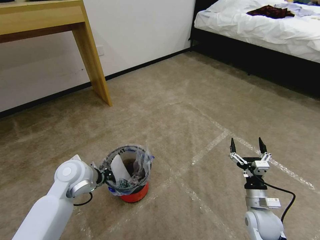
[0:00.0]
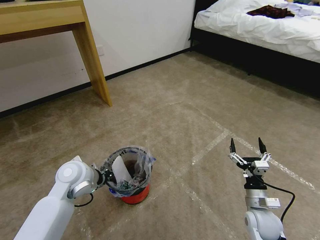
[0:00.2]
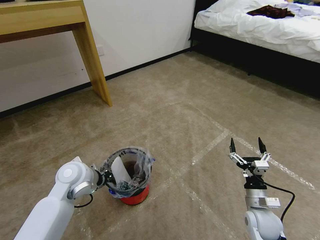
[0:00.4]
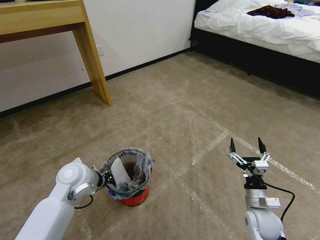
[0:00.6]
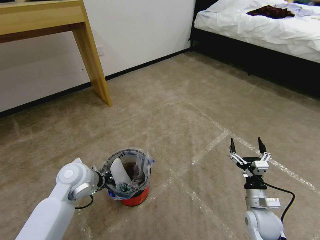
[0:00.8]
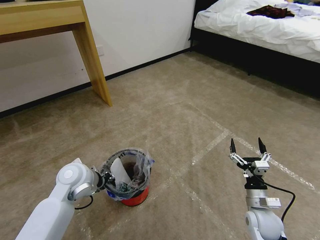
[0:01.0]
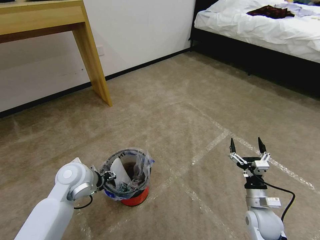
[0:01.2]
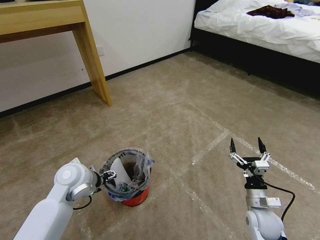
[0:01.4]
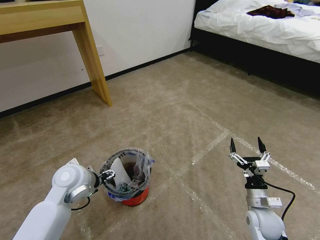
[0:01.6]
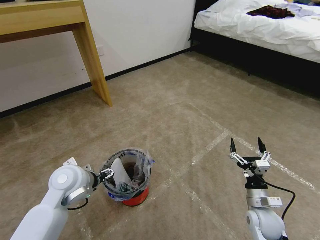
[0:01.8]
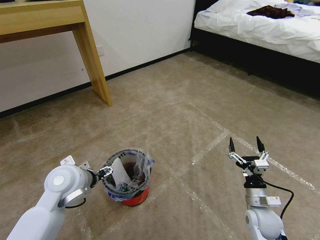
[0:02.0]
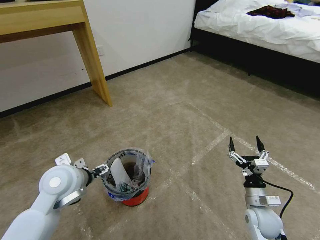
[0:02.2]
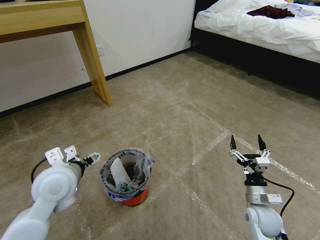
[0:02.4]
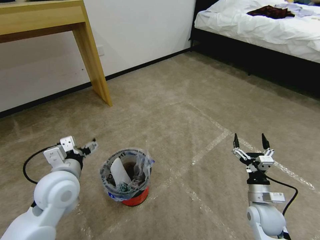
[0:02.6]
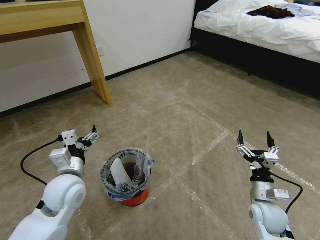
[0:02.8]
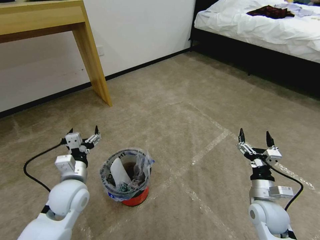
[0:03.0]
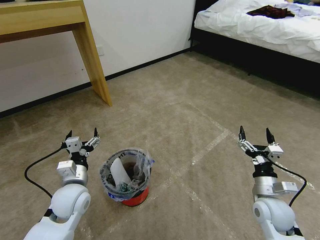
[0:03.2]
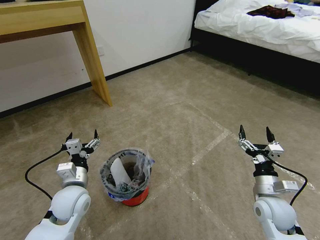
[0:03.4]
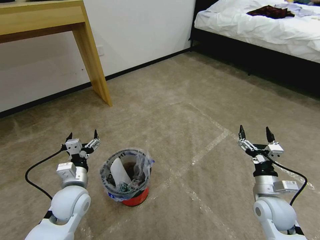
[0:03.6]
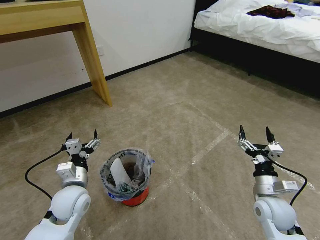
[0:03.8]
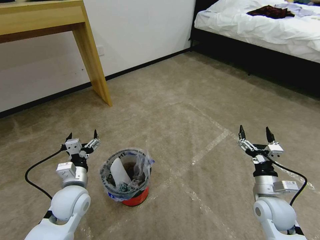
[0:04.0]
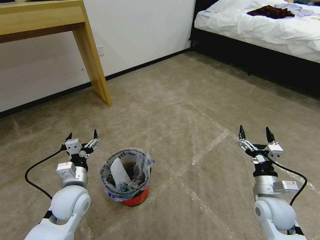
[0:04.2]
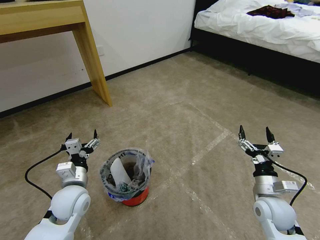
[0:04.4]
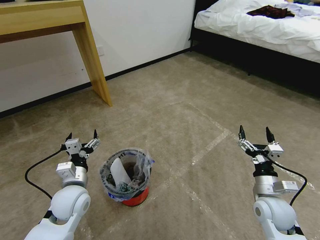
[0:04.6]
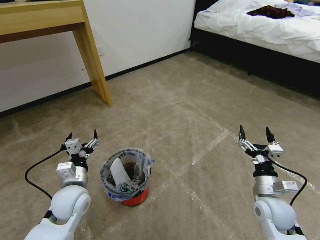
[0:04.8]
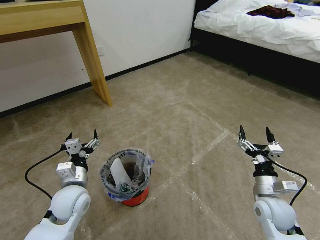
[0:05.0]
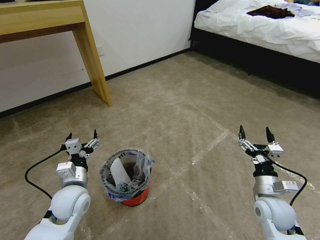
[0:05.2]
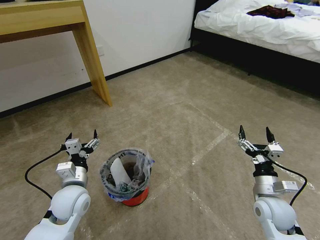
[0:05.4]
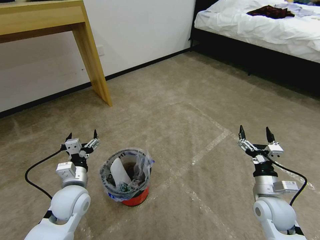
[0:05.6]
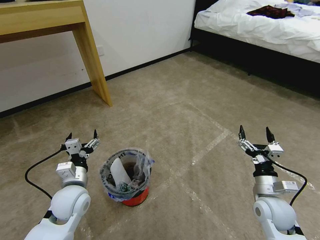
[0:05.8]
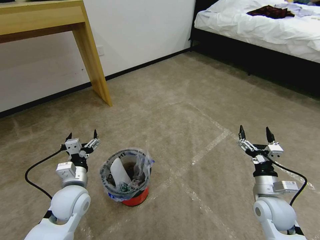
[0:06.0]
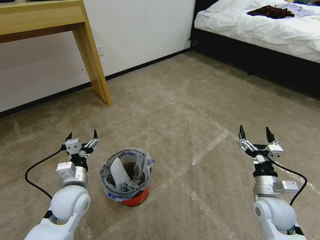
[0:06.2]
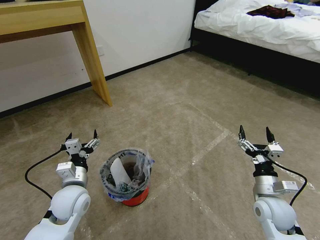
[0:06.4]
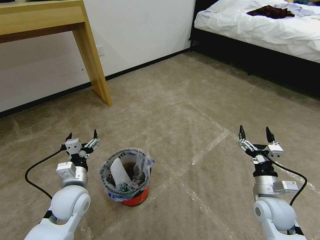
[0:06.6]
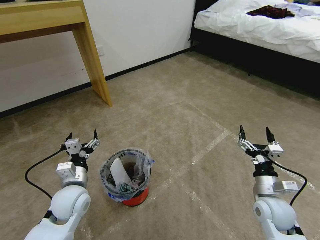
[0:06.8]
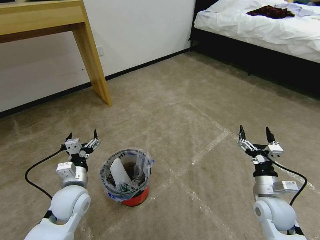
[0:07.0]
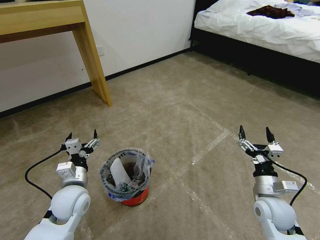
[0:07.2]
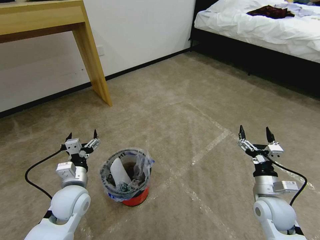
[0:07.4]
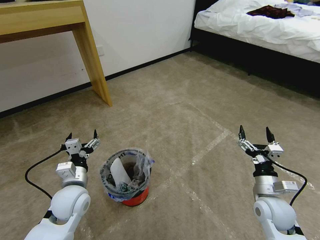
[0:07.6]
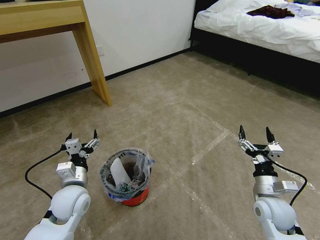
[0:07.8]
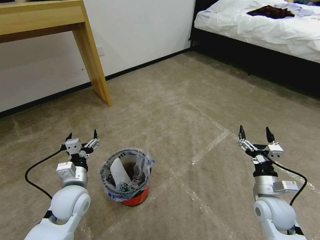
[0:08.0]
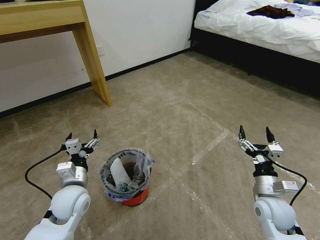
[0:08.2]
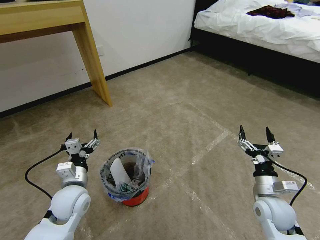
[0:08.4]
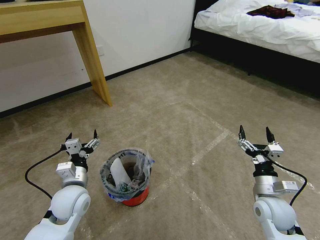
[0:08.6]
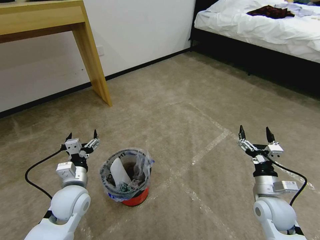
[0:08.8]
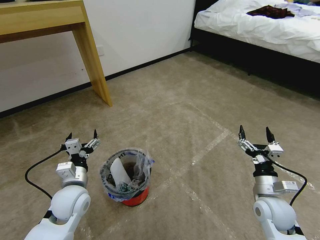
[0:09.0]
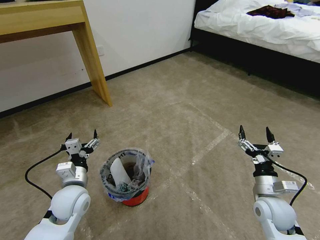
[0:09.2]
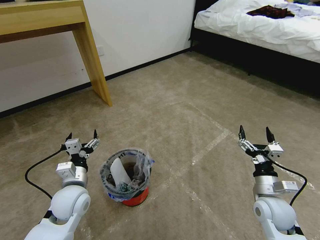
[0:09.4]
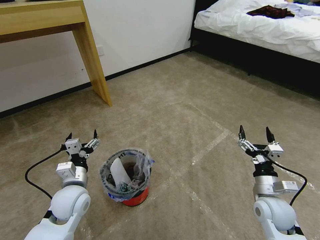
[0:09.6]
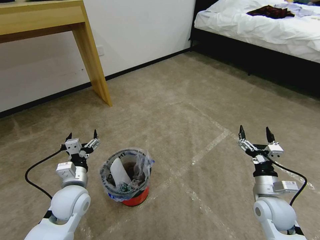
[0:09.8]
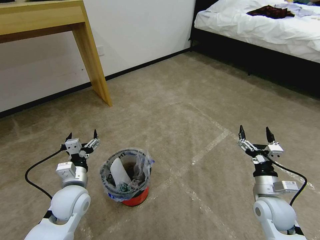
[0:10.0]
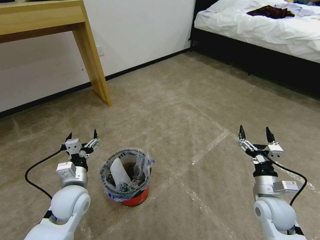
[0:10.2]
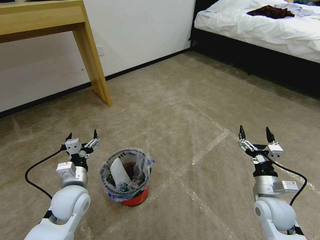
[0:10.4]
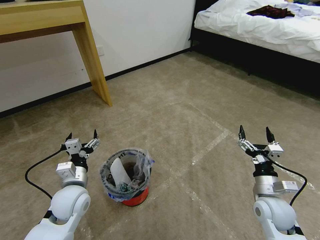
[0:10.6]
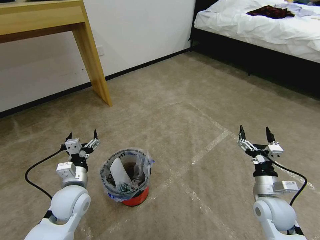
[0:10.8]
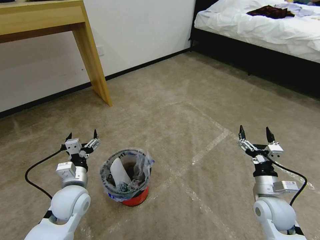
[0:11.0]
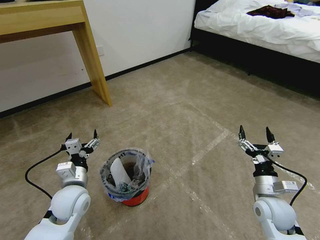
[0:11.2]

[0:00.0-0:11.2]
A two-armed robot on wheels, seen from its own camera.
Task of the whole recording: Pick up the trash bin and place the garbage on the floor into it.
0:00.0 to 0:01.6: The left gripper opens.
0:01.6 to 0:03.2: The left gripper changes place by some 5 cm; the right gripper goes about 5 cm upward.
0:03.2 to 0:11.2: Both grippers stay put.
